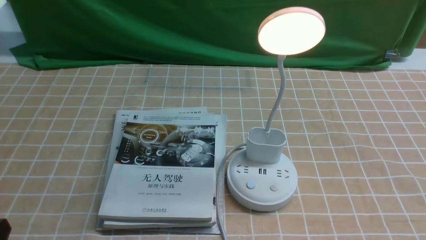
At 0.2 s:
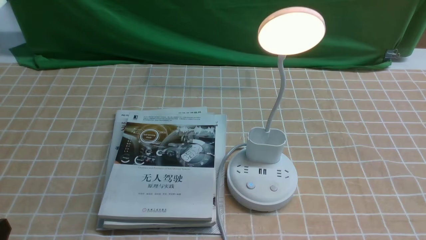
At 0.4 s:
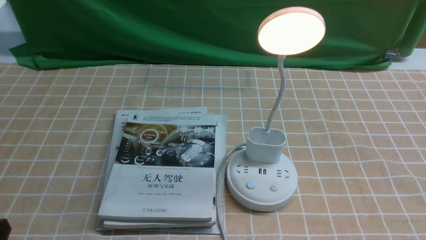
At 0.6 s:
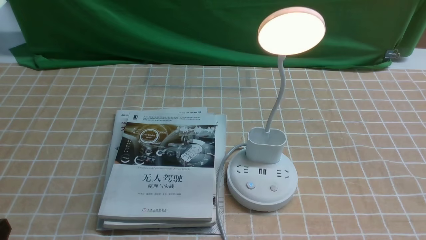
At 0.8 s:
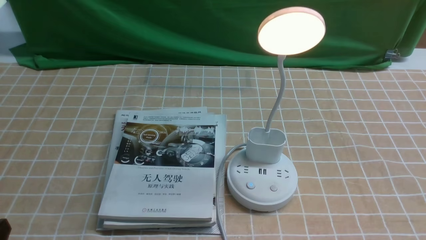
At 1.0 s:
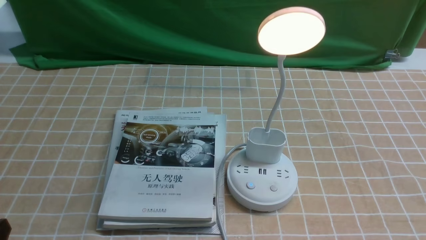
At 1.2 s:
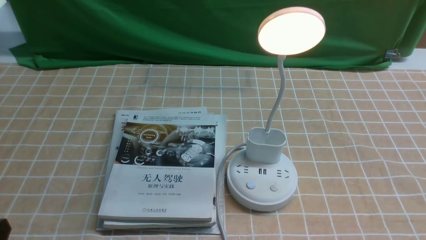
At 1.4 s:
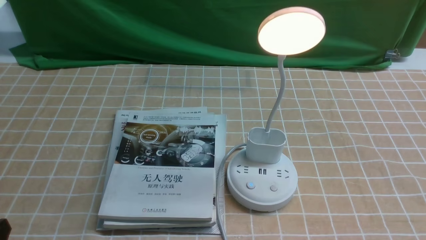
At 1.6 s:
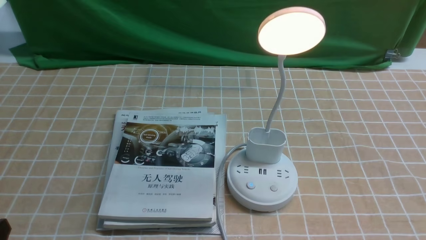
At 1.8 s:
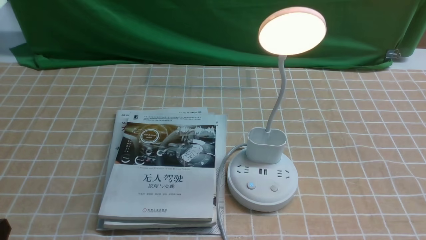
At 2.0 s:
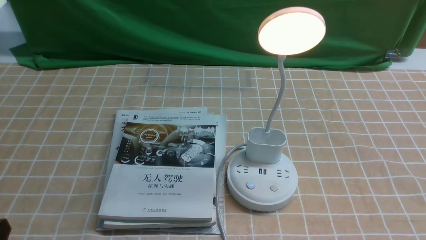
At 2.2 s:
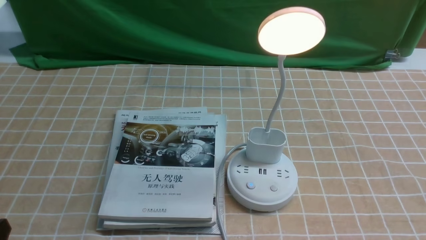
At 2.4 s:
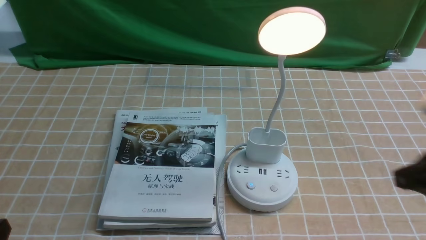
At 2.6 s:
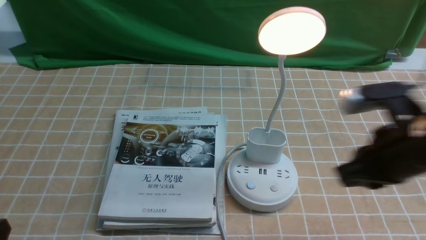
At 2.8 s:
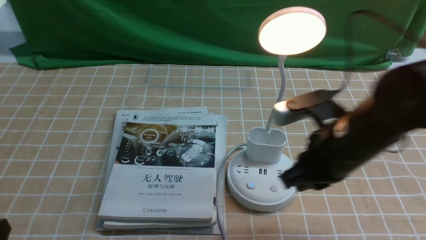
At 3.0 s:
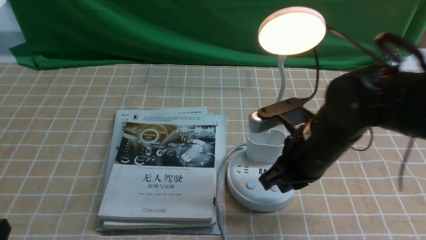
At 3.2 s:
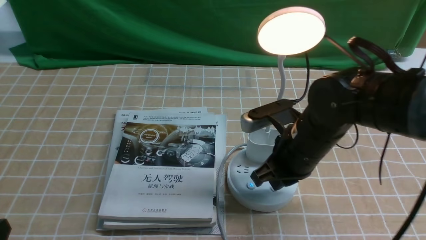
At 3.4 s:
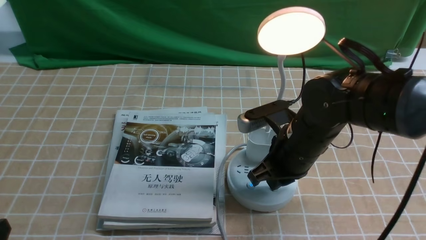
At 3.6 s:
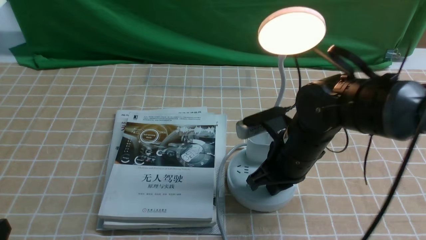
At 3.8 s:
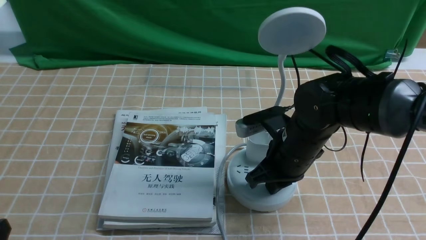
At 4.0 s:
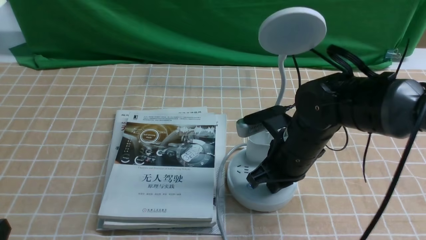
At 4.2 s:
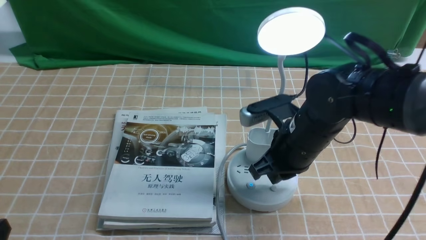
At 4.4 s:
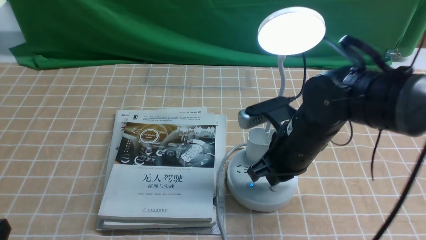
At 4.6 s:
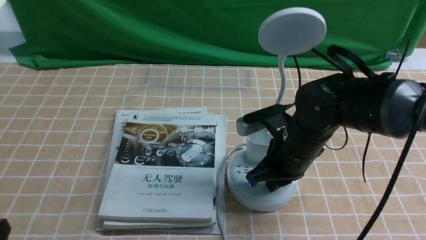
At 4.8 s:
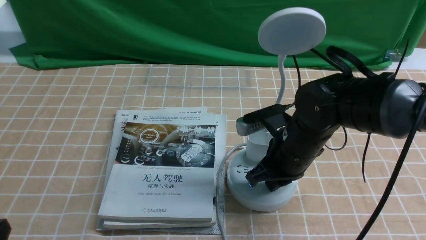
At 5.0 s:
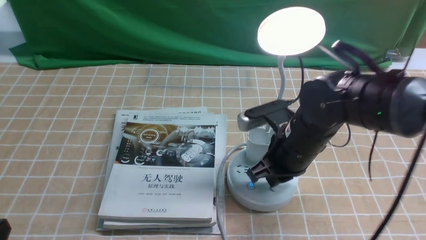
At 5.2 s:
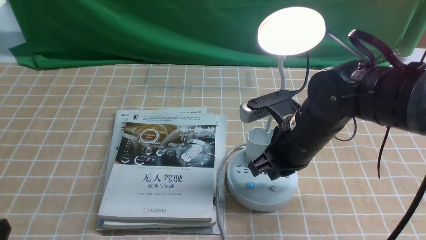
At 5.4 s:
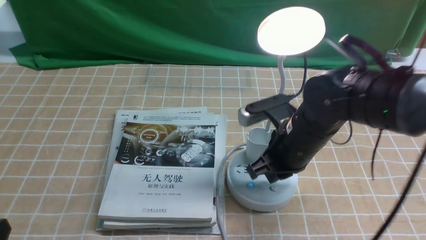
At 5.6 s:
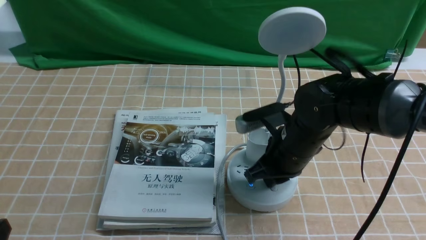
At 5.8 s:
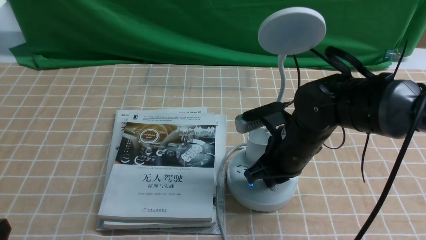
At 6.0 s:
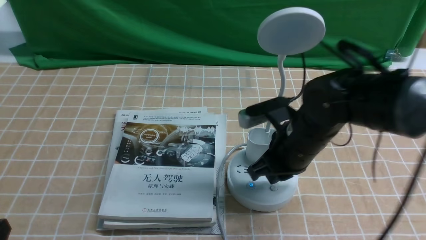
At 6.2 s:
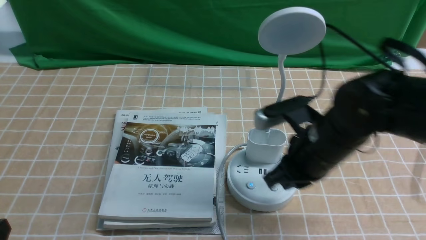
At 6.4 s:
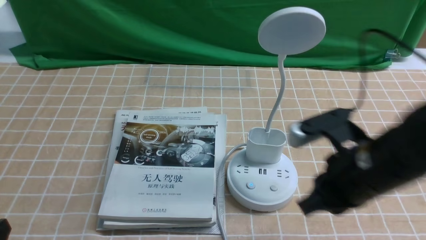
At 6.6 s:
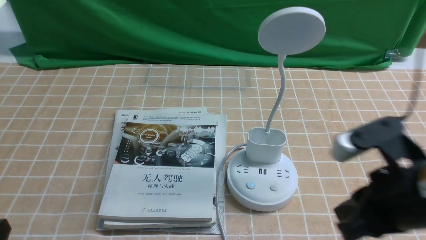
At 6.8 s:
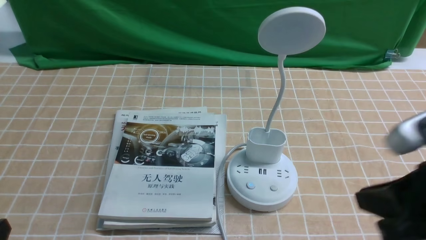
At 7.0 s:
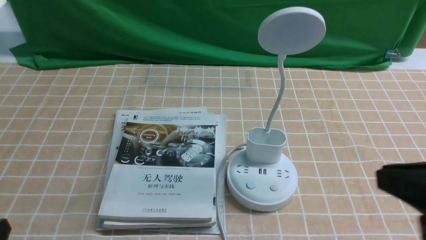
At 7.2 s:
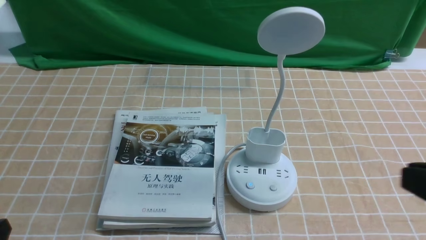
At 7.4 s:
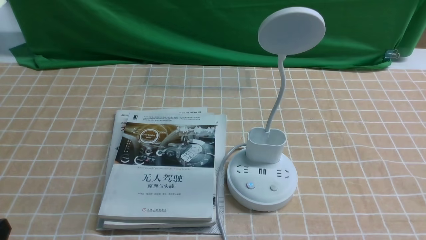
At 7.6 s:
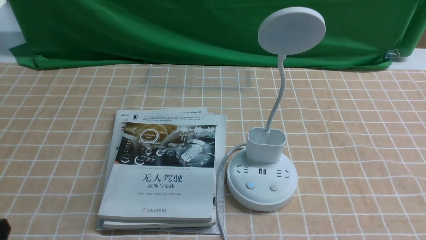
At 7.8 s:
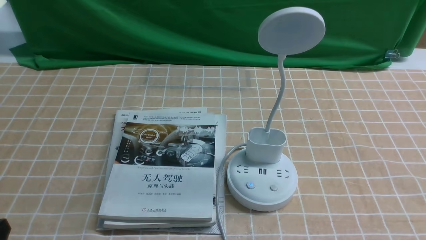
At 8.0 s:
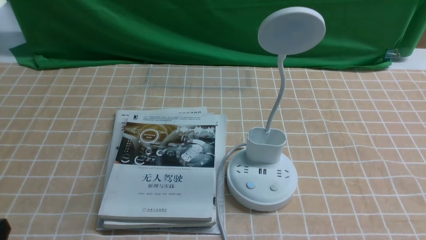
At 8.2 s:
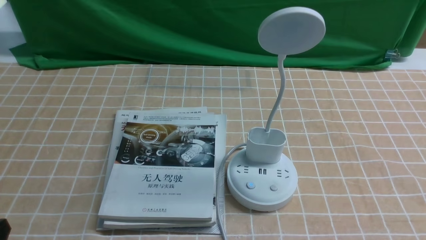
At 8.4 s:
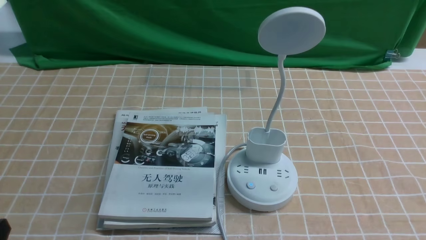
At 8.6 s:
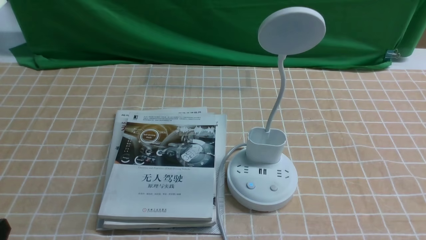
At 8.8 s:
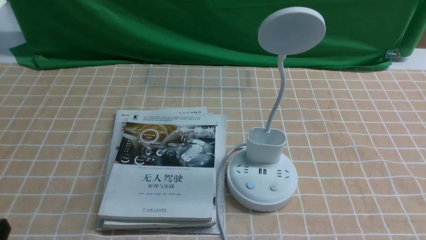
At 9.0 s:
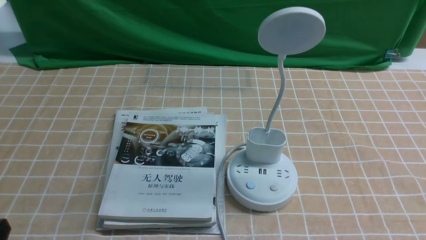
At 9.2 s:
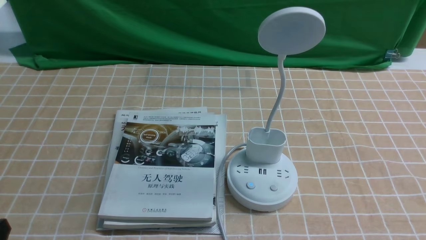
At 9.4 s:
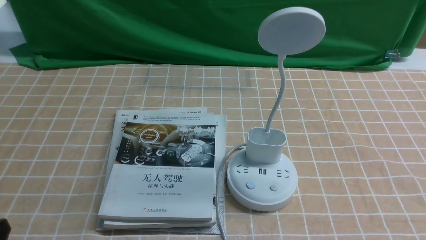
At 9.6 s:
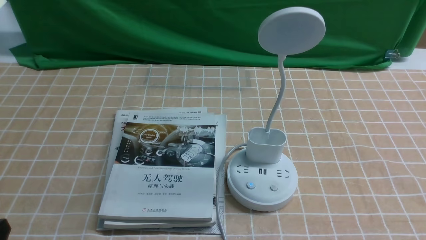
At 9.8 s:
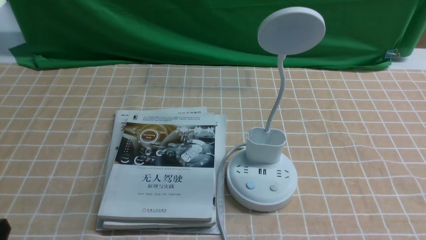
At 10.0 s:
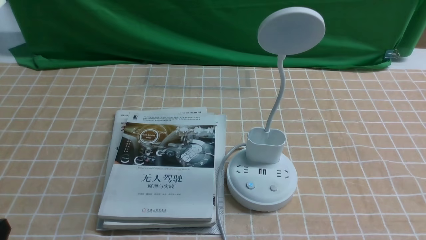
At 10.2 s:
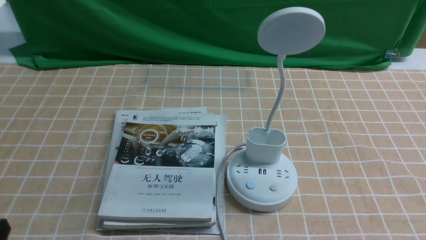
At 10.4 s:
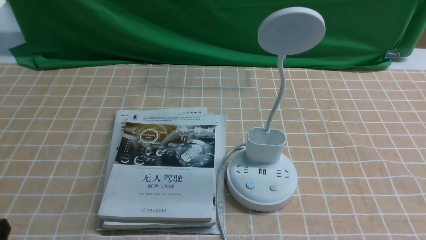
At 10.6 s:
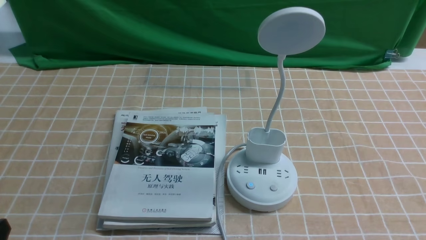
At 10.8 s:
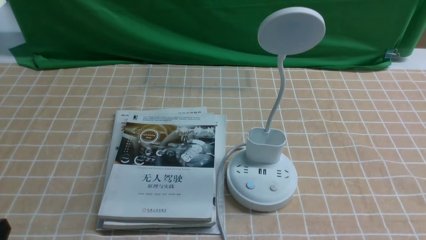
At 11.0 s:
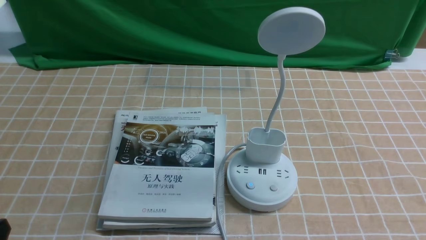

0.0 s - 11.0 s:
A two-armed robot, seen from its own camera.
Task of the whole recording: turn off the desk lamp on the light coffee tablecloth by hand.
Step, 0.0 s - 6.0 s: use the right arm to press the button switch on the lamp holder.
1.6 s - 3.2 s: The right gripper heads forward and to the left, covering approximately 30 cm, and closes its fingers.
3.2 s - 4.8 s: The grippers stay close to where they were, moving slightly.
4.8 s - 6.2 s: The right gripper shifts by approximately 5 cm.
6.2 s - 7.8 s: The right gripper is displaced backward and to the right by roughly 25 cm.
